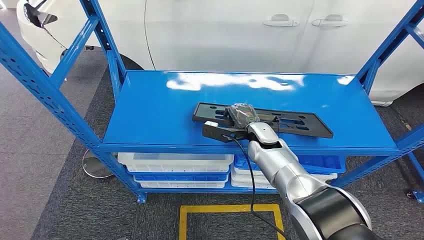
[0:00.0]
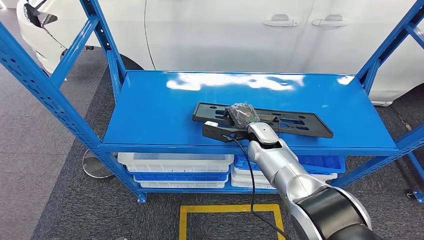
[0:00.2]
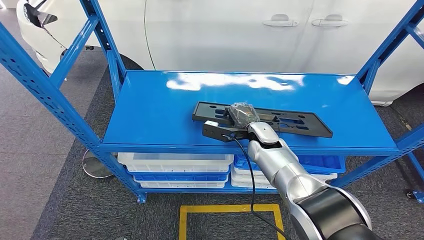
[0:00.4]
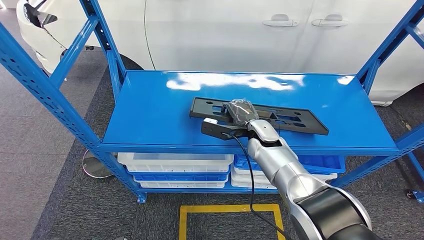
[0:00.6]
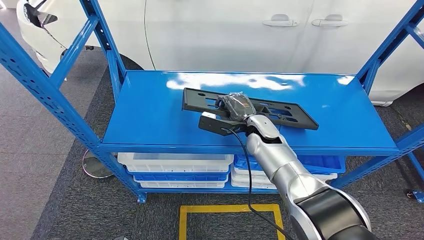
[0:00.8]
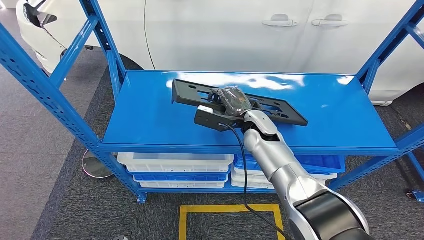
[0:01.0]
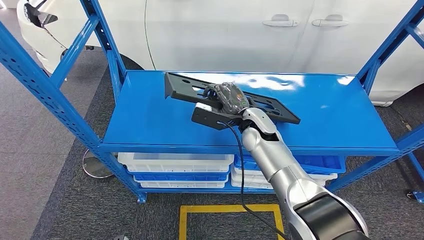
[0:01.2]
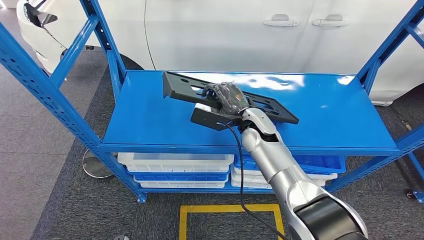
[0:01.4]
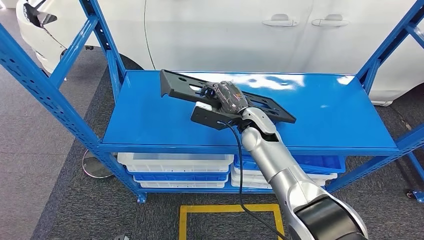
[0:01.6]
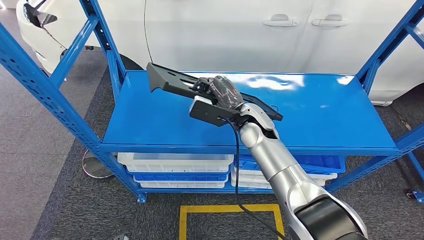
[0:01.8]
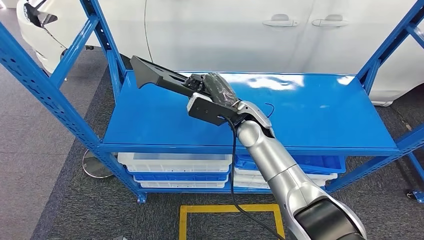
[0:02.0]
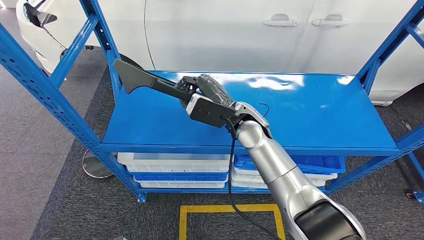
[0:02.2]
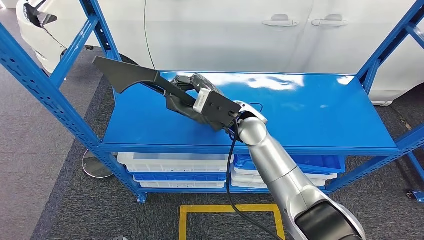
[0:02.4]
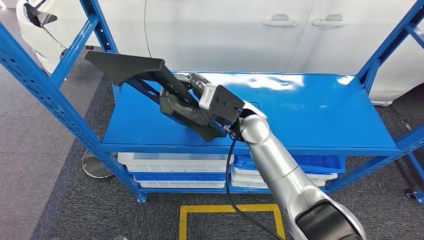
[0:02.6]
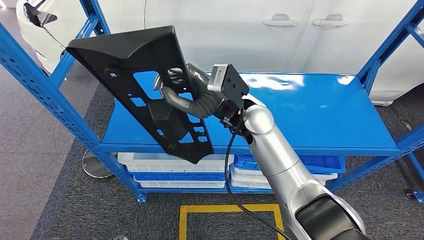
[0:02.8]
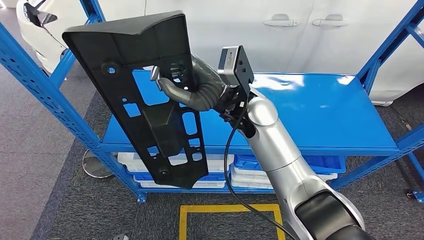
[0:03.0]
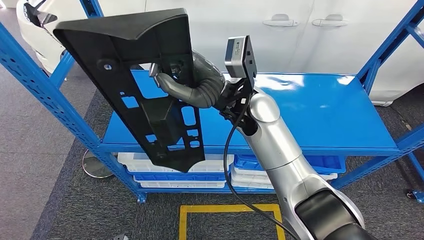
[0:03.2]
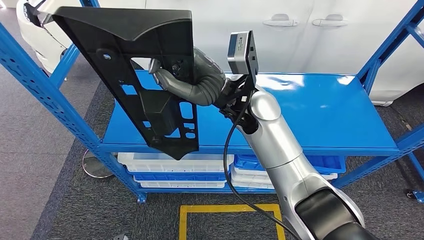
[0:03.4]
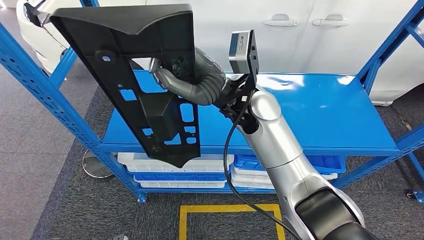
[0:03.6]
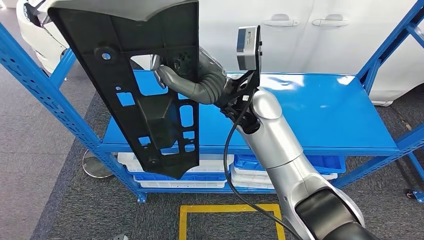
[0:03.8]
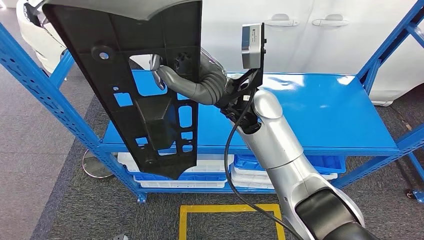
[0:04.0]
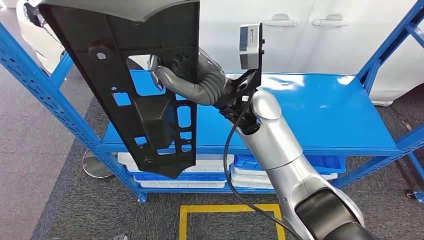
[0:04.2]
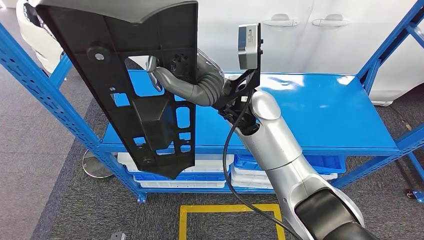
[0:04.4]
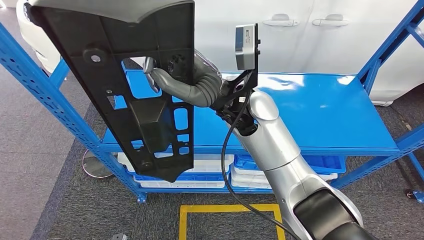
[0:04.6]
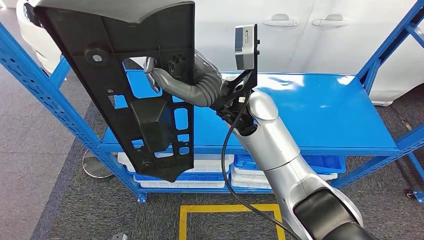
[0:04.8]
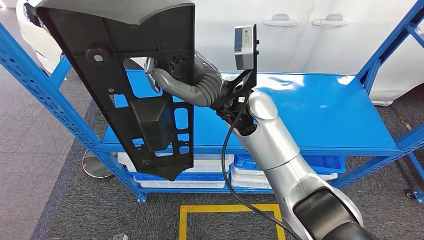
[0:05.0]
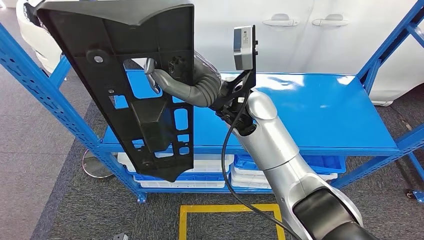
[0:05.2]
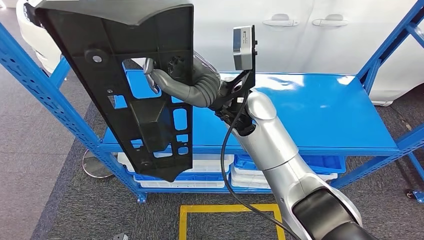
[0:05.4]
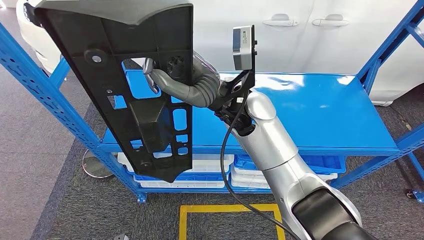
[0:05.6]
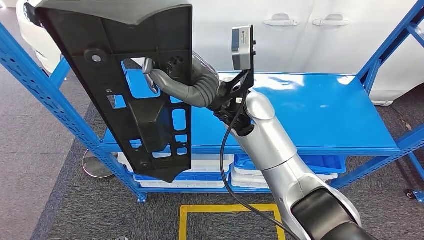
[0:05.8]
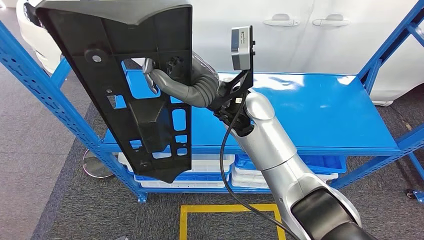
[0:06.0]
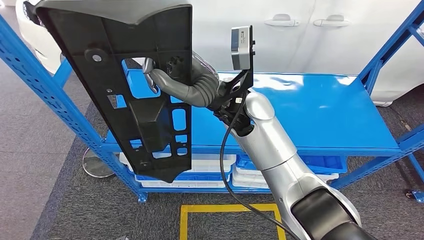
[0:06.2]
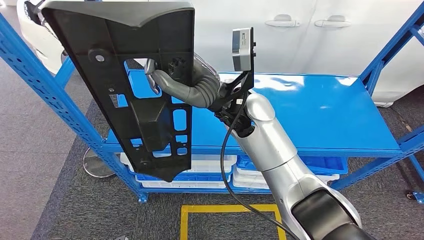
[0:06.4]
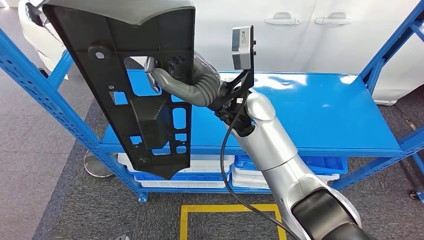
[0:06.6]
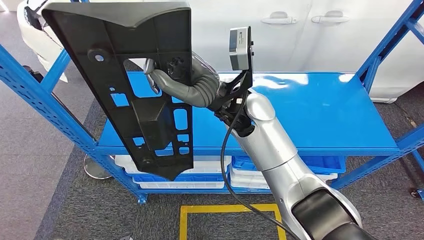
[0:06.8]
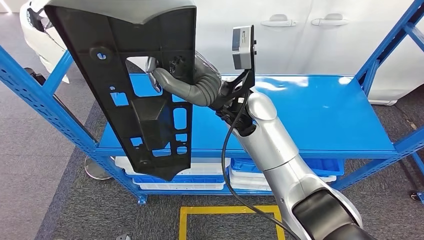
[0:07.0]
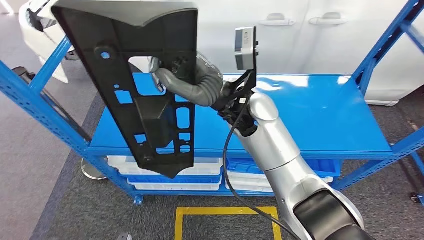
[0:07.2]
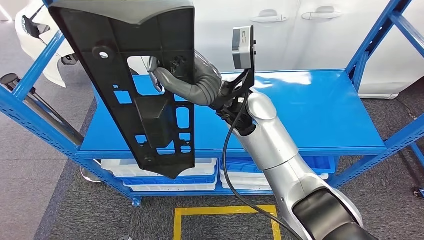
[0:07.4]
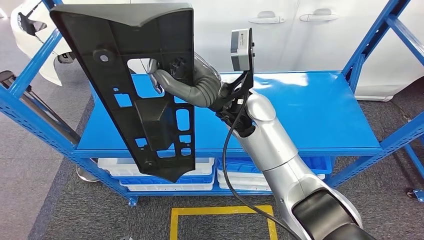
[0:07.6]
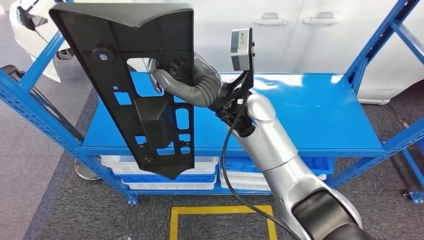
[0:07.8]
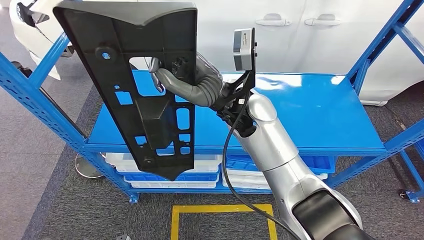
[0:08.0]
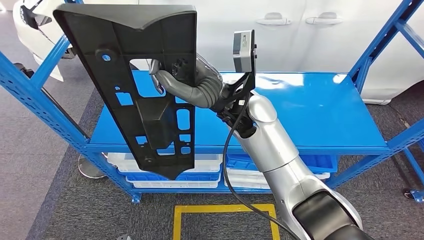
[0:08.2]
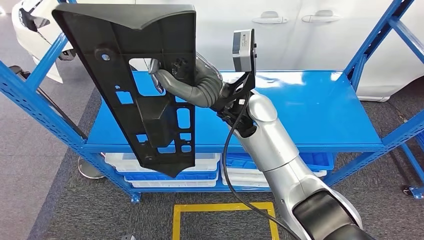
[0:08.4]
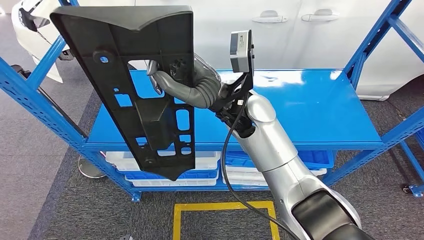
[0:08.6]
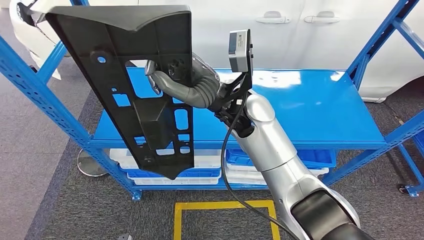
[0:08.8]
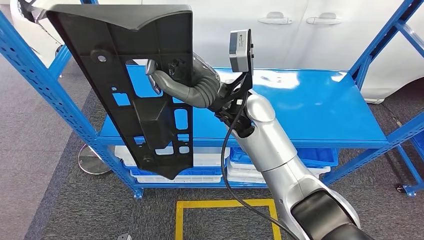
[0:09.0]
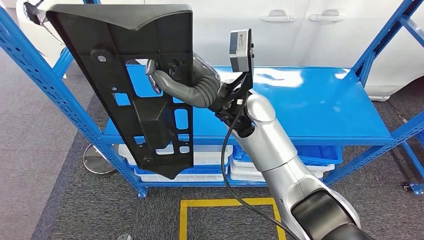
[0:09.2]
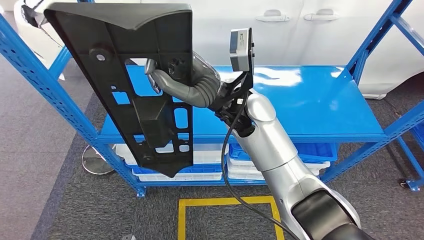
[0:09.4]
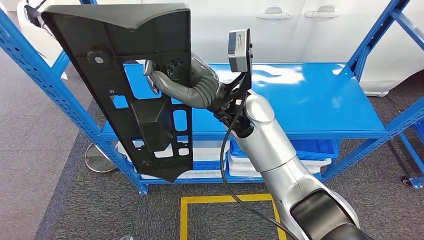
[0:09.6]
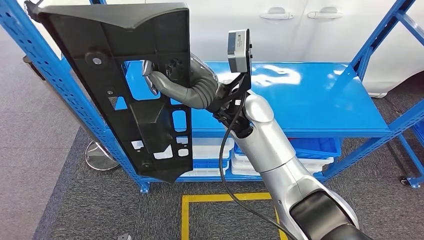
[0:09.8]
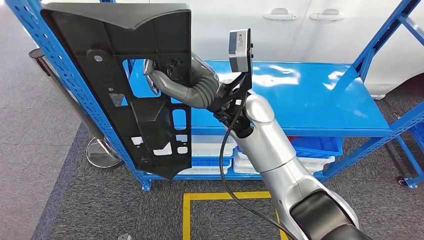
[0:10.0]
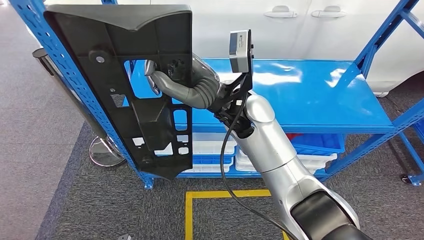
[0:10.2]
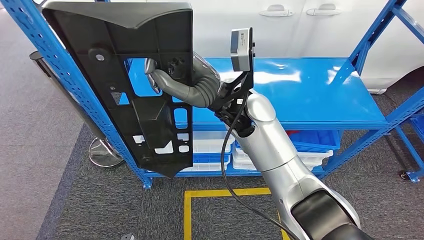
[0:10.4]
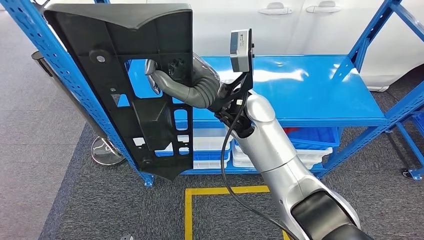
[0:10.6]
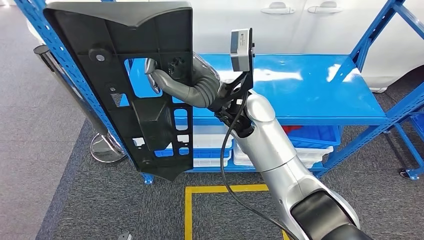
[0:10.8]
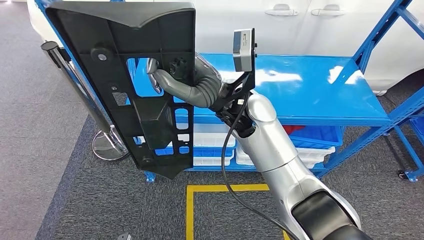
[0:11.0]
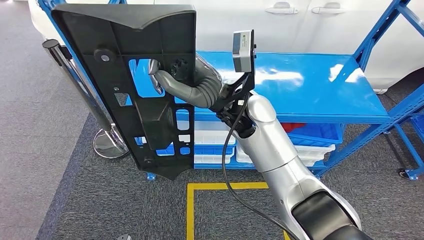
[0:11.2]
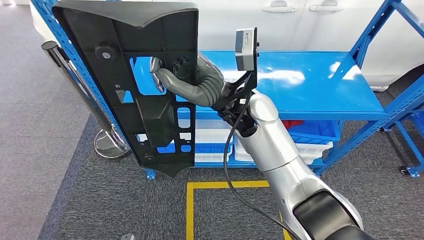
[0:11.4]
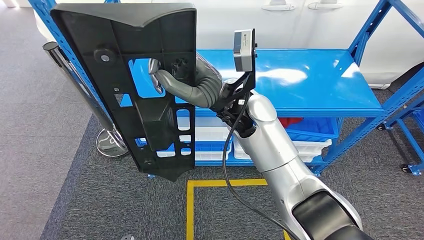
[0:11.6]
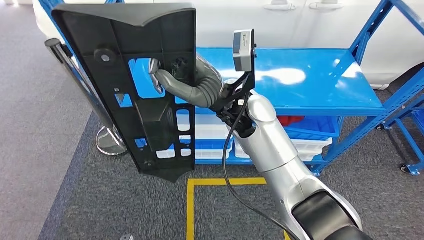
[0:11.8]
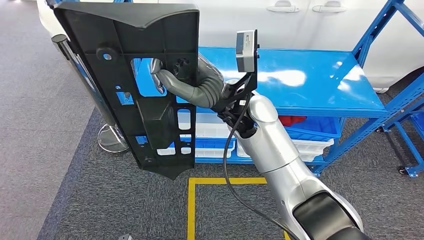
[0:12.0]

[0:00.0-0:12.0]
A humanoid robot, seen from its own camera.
Step, 0:00.0 to 0:02.6: Take small components from the rack.
0:03.0 to 0:06.0: There are only small adjustments of the hands.

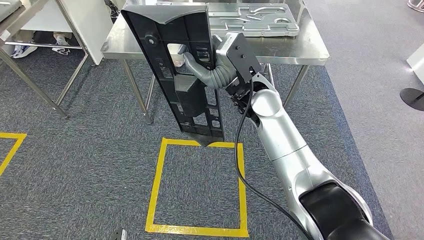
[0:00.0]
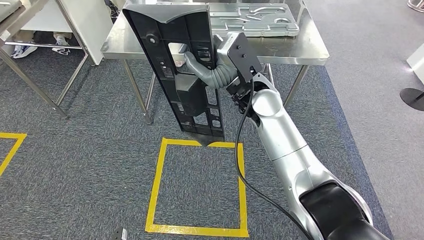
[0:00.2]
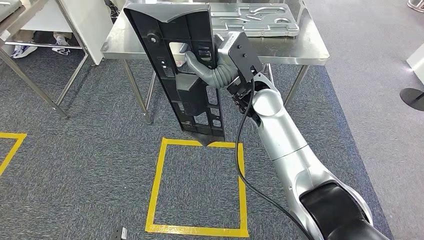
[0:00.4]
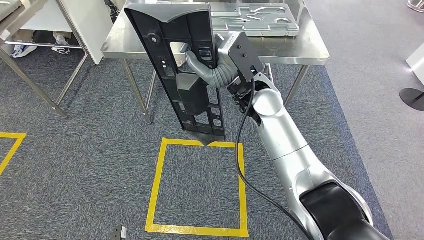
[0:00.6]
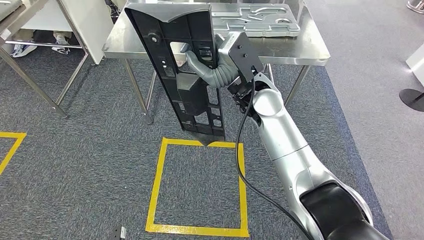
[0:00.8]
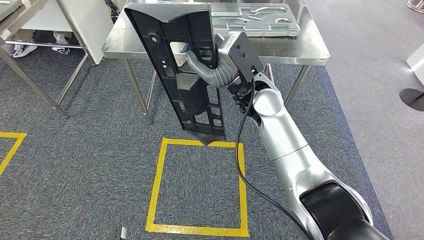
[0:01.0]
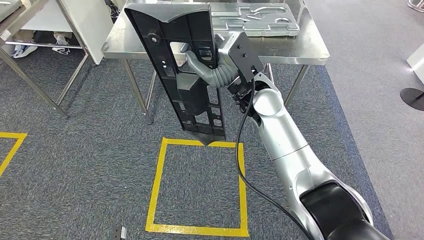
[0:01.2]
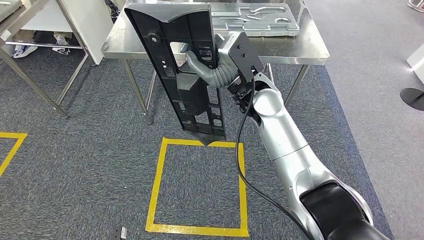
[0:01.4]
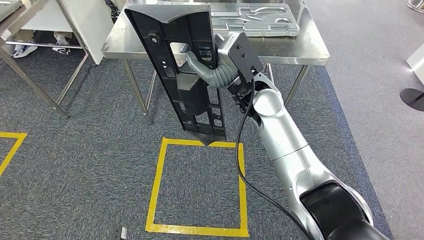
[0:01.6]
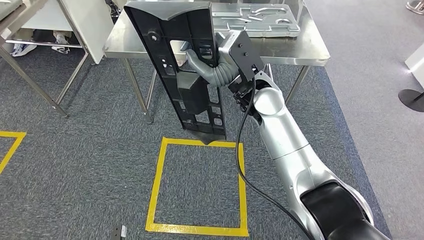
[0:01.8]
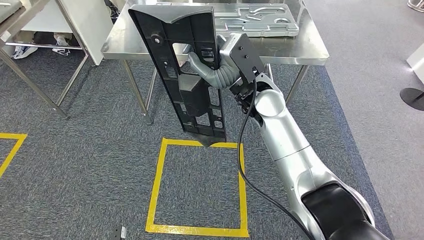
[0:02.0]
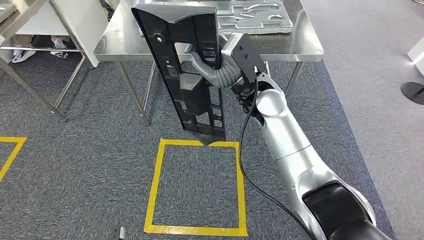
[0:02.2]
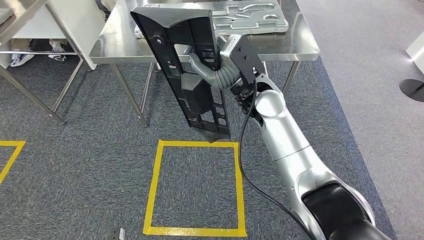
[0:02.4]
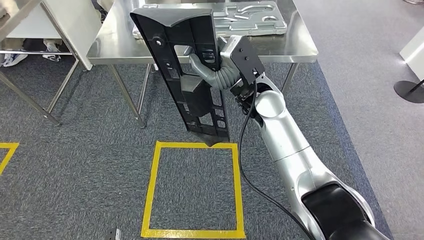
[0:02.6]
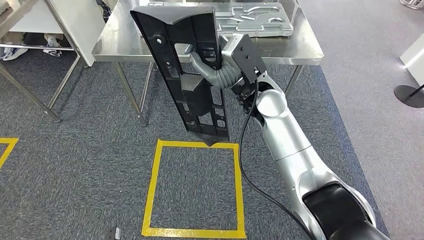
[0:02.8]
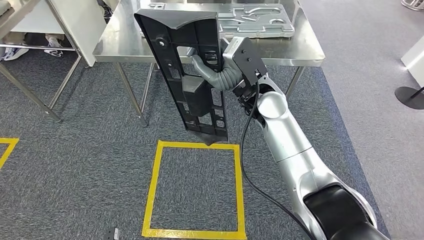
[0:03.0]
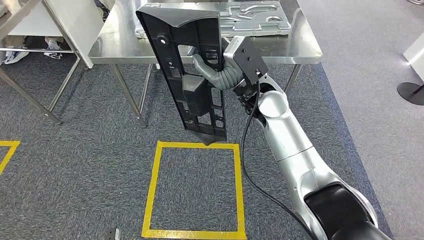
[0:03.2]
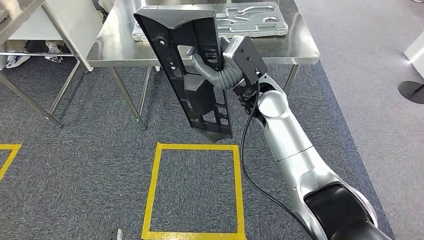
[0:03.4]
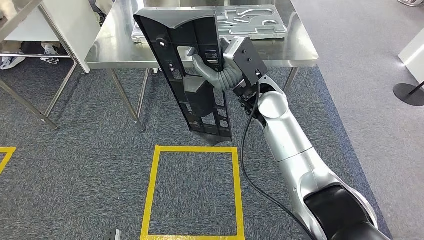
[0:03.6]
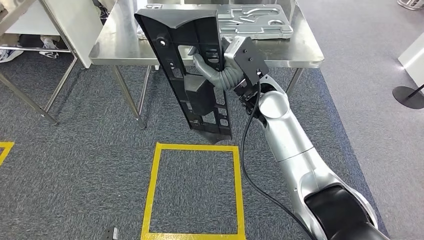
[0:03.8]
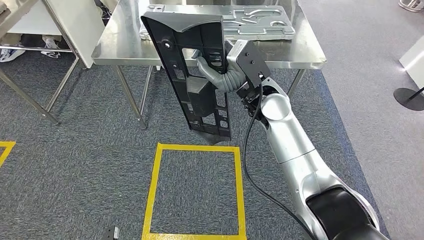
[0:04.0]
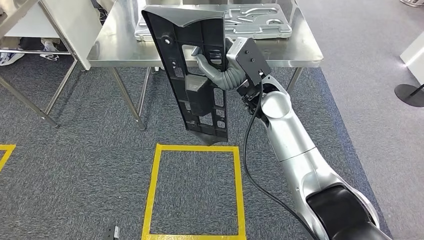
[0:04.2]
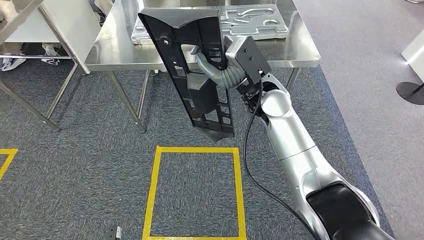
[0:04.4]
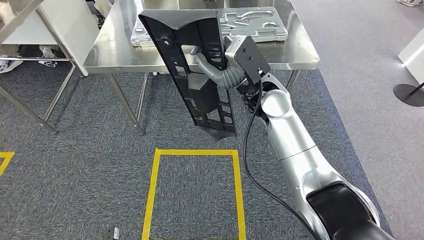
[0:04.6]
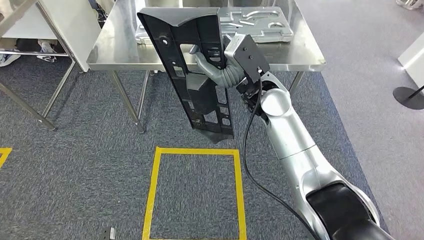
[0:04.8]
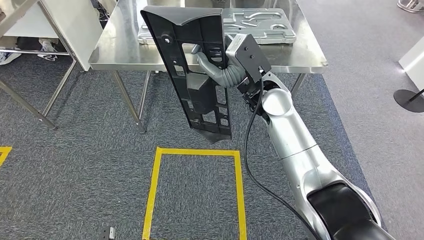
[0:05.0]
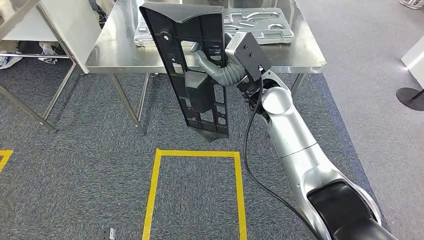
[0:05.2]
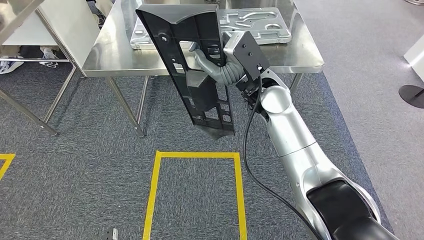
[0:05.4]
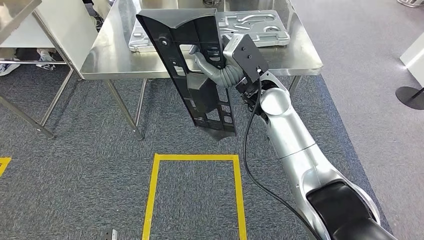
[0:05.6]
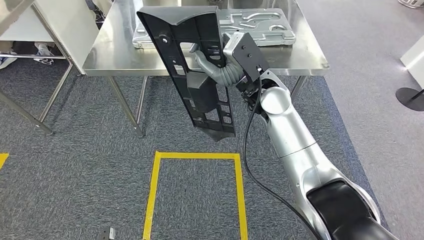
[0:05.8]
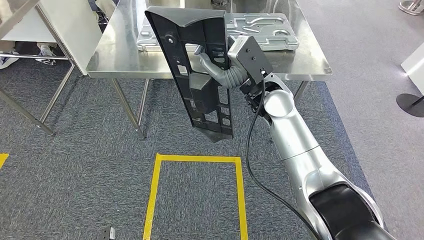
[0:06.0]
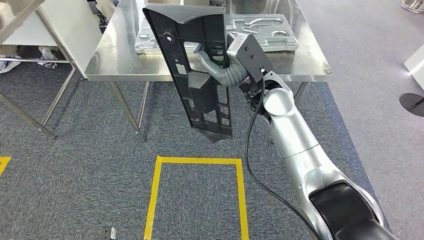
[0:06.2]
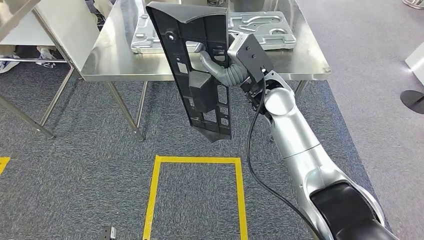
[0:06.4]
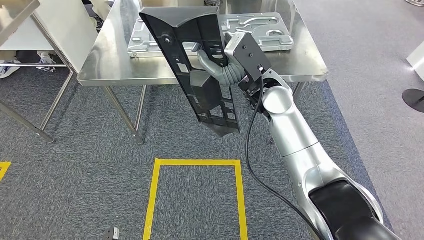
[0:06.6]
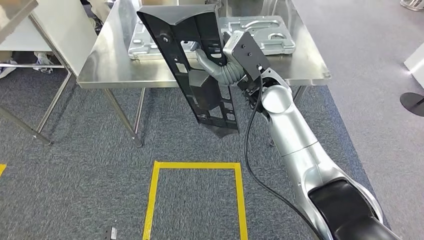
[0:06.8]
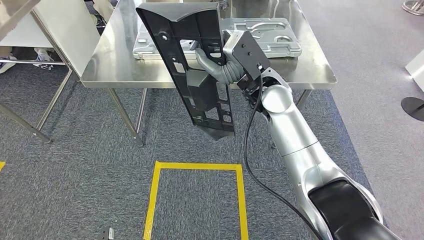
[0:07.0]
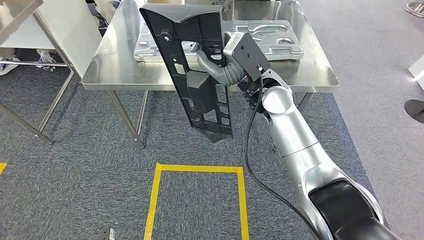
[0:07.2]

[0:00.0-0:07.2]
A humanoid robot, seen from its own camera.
0:00.0 to 0:01.4: Both hands stay about where they are.
0:04.4 to 0:07.2: The two hands keep their place.
